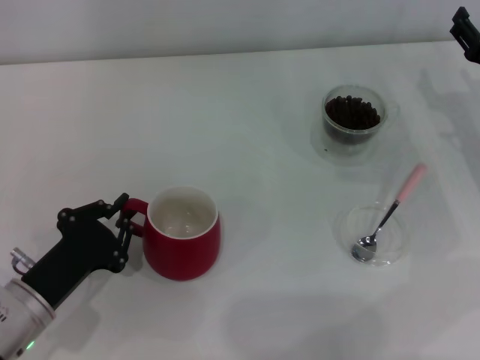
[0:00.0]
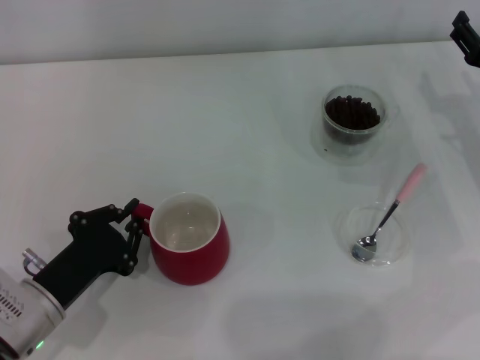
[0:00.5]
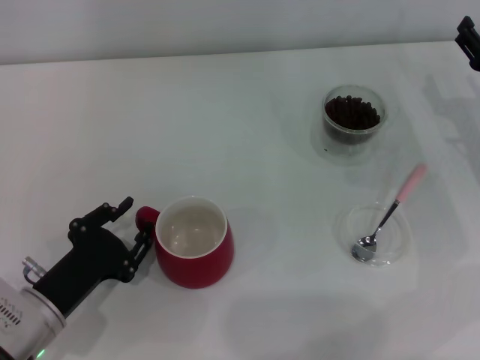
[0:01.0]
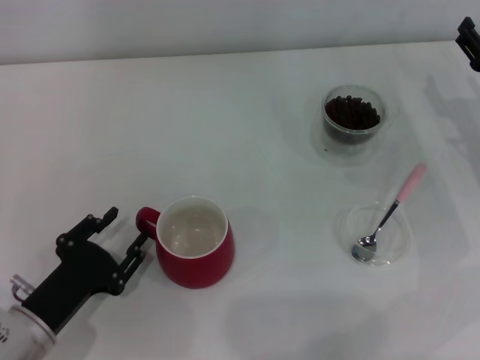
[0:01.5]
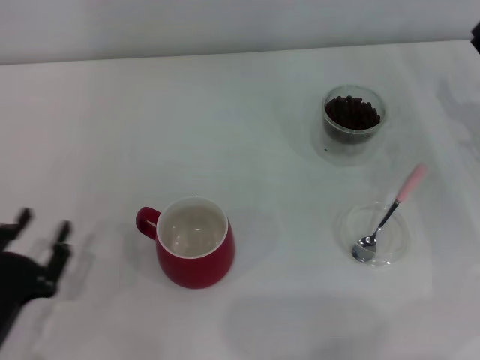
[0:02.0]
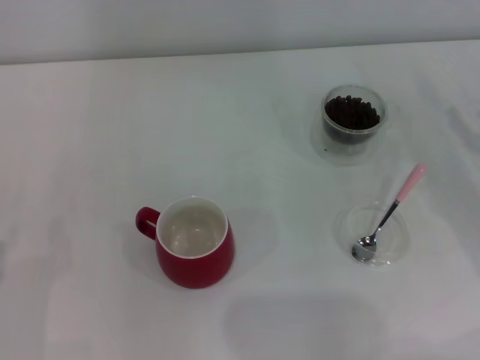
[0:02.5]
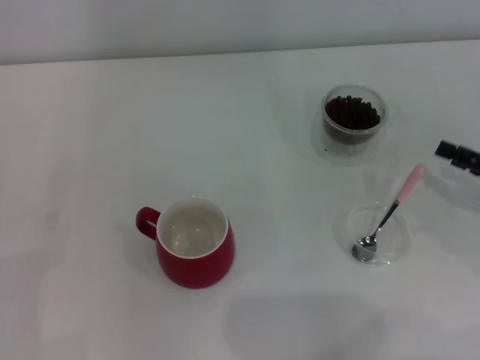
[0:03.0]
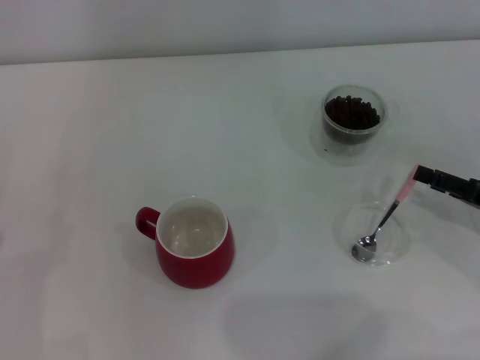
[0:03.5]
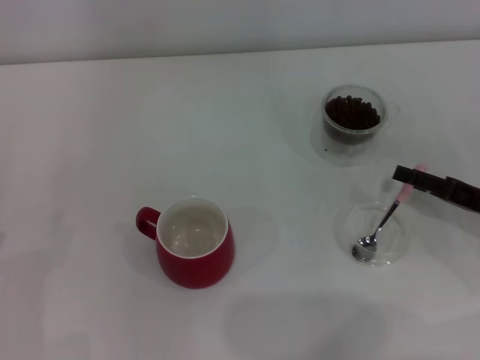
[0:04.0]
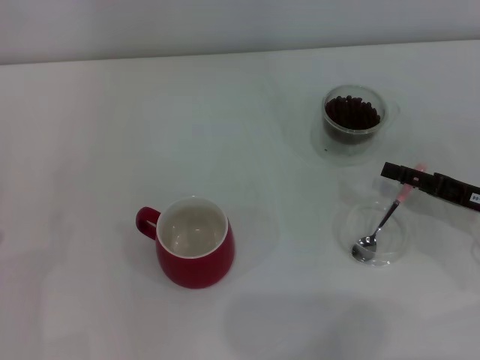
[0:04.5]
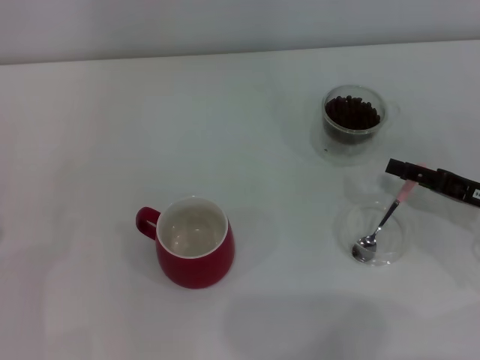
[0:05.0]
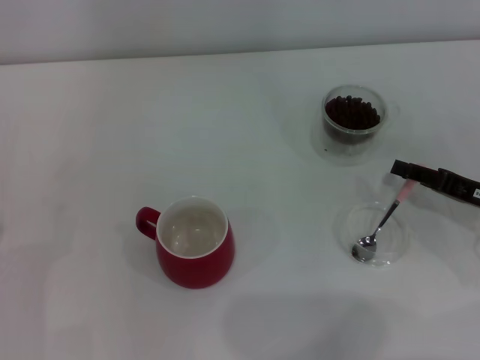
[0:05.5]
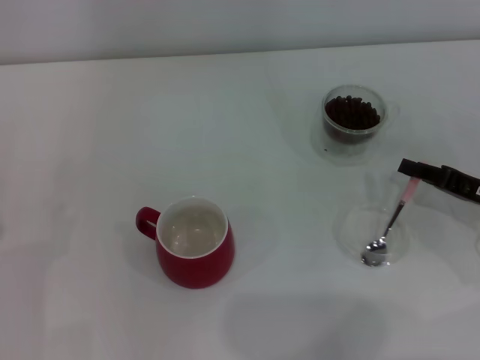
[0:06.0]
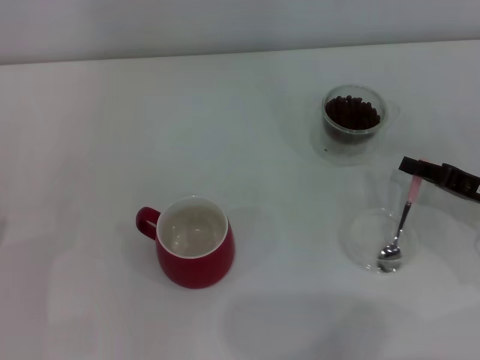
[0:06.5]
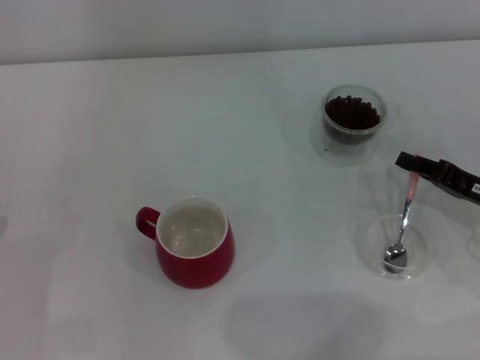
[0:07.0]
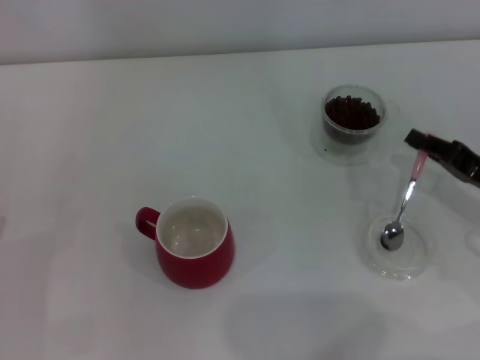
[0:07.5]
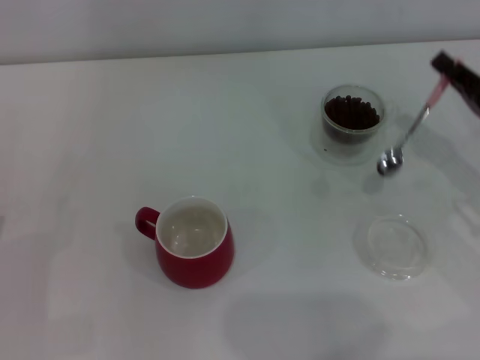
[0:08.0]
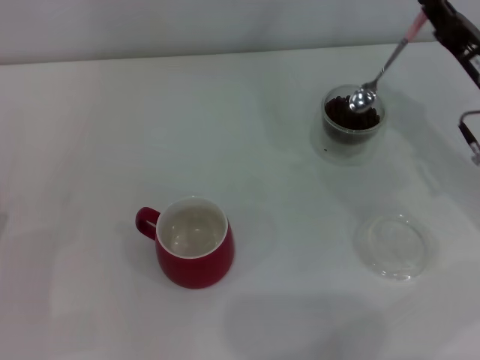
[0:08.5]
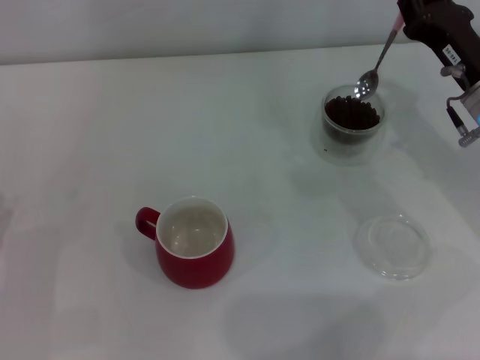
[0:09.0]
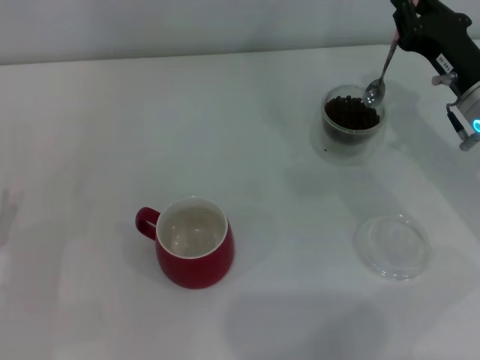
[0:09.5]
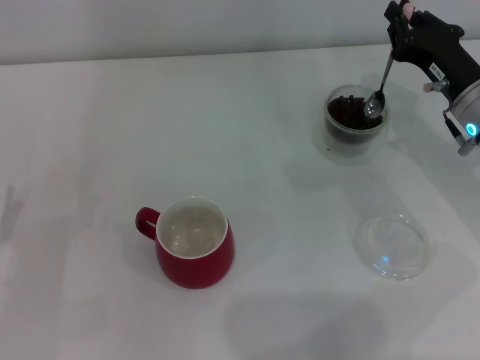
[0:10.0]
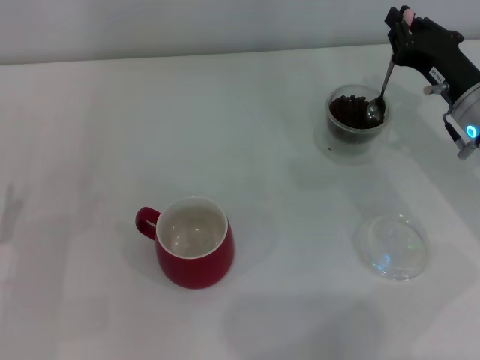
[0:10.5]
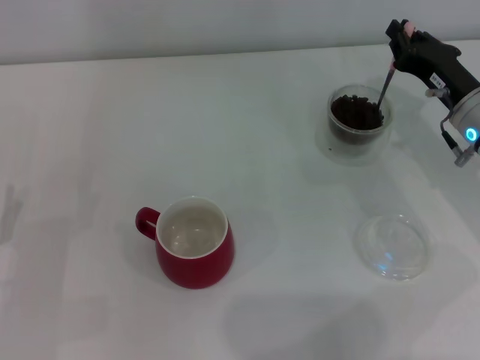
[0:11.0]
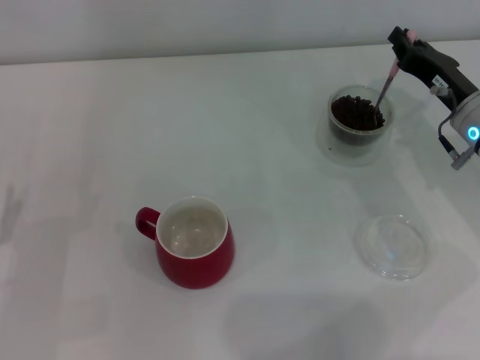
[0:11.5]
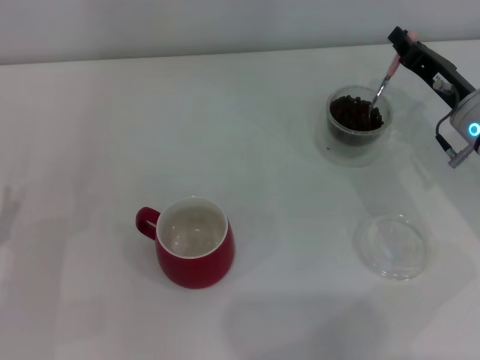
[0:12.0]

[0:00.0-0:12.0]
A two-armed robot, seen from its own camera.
Task of the whole recording: Use a pink spoon to take out the coffee beans from the glass and pour them into the red cup.
Step, 0:02.0 to 0:07.5: Pick up the spoon with the right gripper.
0:00.0 to 0:02.0: The left gripper moves backward, approximately 5 cm, and opens.
0:02.0 to 0:04.0: The right gripper is displaced backward by about 5 cm, while the left gripper shifts by roughly 5 cm, and opens.
0:04.0 to 0:06.0: The right gripper closes.
0:08.0 to 0:10.0: The right gripper goes roughly 10 cm forward and to the left.

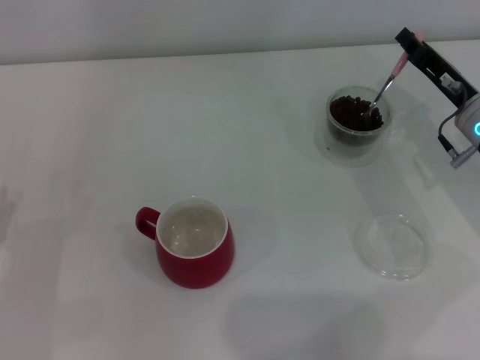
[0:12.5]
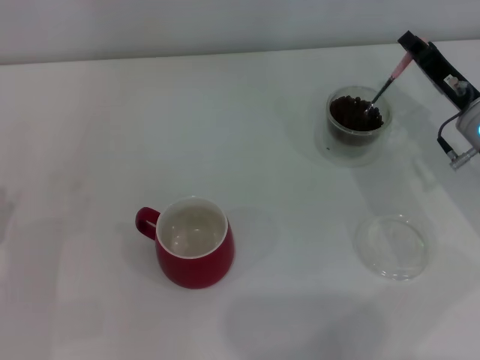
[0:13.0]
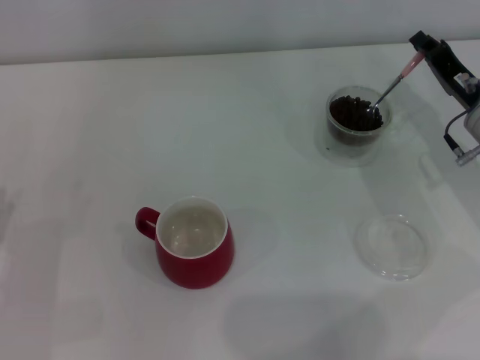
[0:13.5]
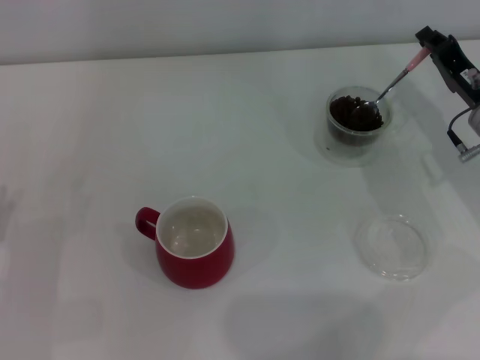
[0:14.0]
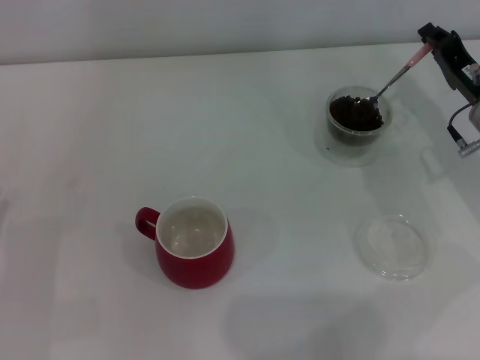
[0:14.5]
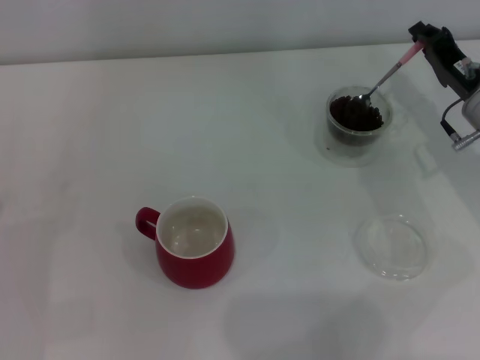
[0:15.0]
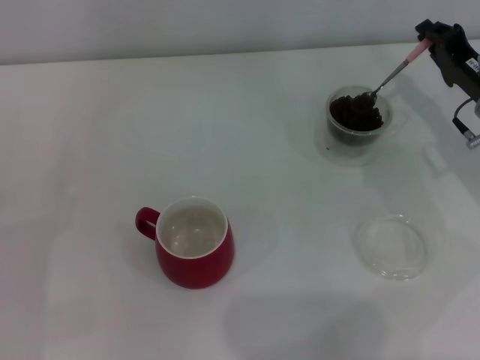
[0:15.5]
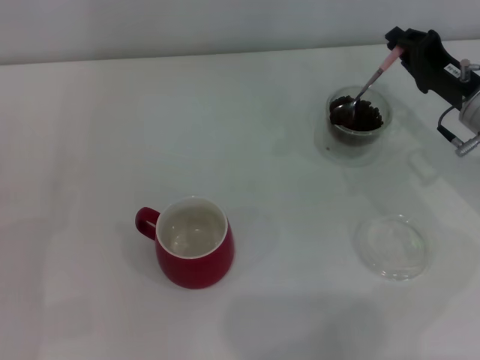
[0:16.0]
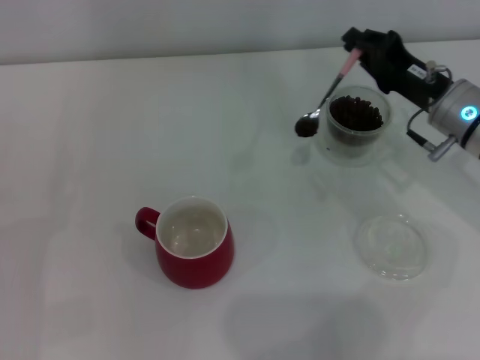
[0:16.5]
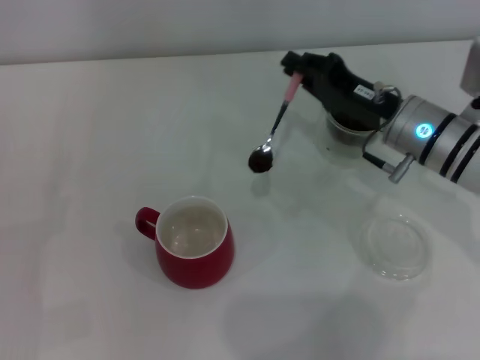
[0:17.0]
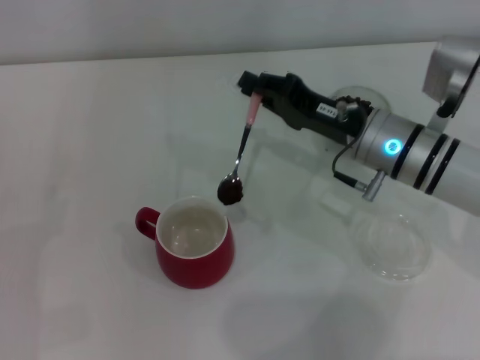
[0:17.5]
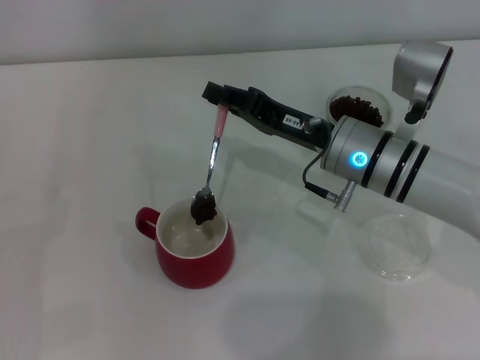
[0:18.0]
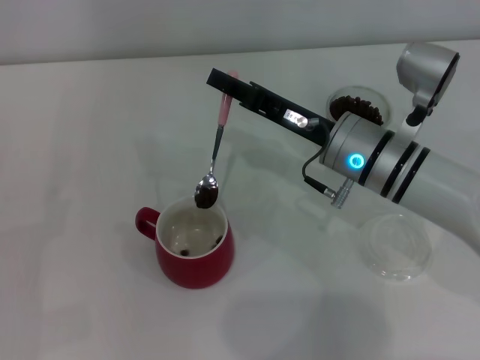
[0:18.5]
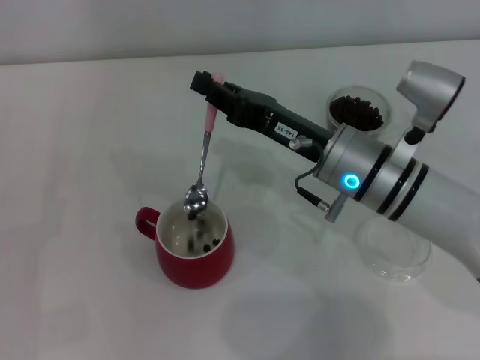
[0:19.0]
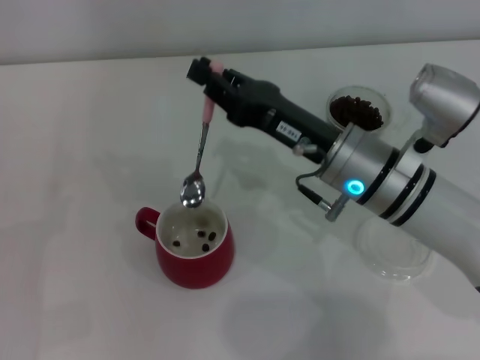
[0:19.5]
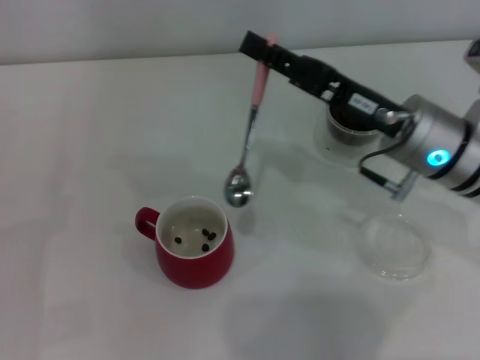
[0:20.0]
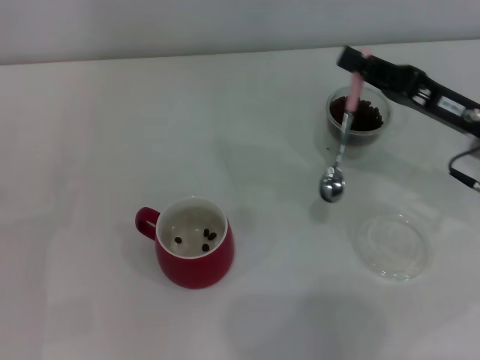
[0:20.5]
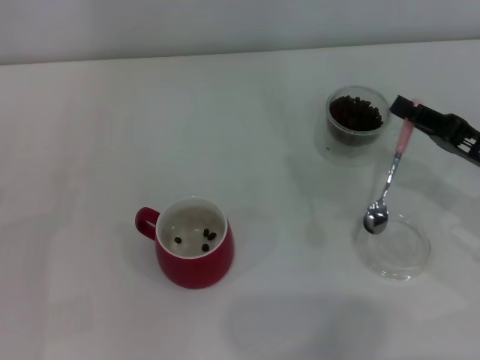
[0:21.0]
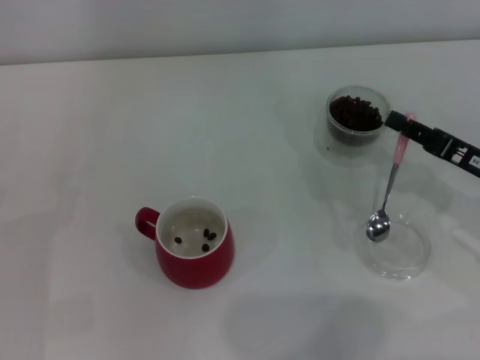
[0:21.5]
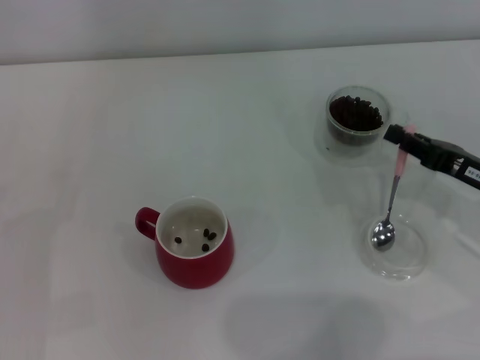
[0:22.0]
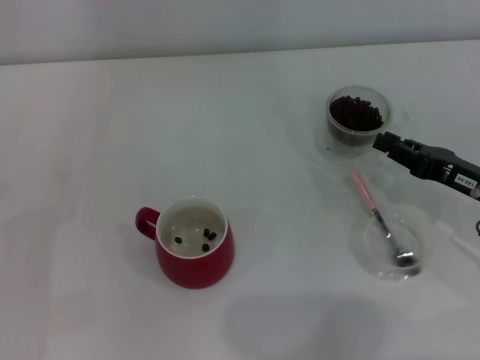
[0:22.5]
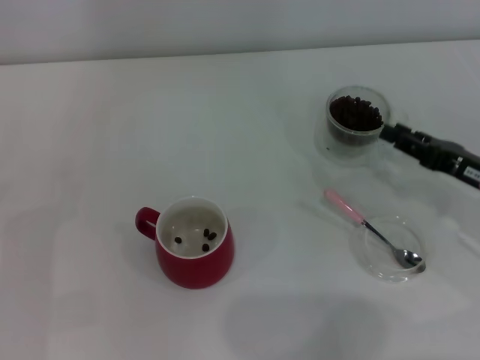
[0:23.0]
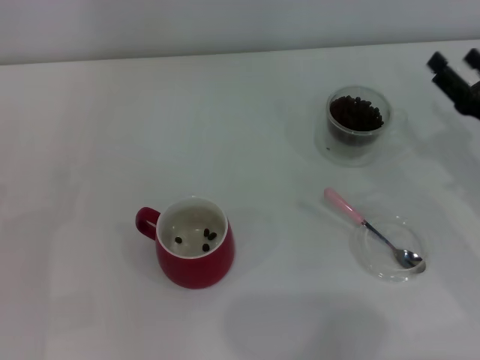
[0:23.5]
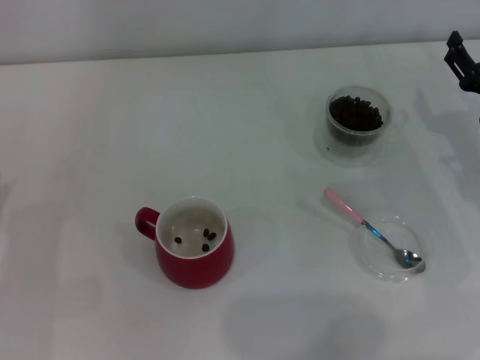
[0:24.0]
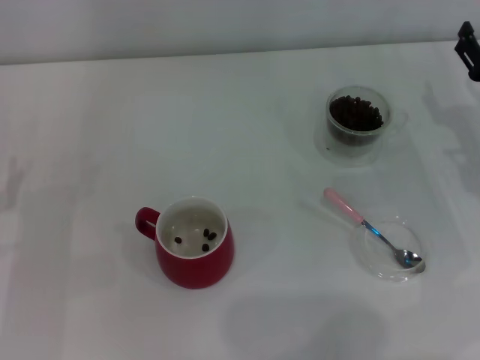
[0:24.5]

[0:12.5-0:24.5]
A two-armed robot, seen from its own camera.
Task of the whole recording: Use a pink spoon to take out the coffee beans from the glass and pour them into the red cup.
Step, 0:12.5 to 0:19.5: Scoop a spoonful of beans into the cup with the right gripper.
Step, 0:20.0 to 0:22.5: Place the spoon back in its original place with the right gripper.
0:12.5 to 0:14.5: The grippers stay close to where they were, moving slightly.
0:16.5 to 0:18.5: The right gripper heads to the left, covering some 10 cm.
0:18.5 to 0:20.5: The right gripper heads to the right, covering roughly 15 cm.
0:20.5 to 0:22.5: The right gripper is displaced downward by about 5 cm.
0:22.5 to 0:24.5: The right gripper ends up some 5 cm from where it was, and opens its fingers.
